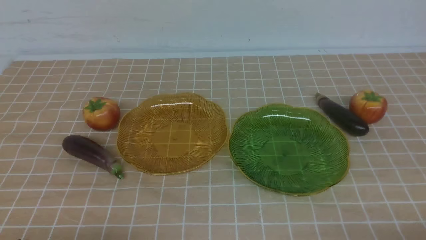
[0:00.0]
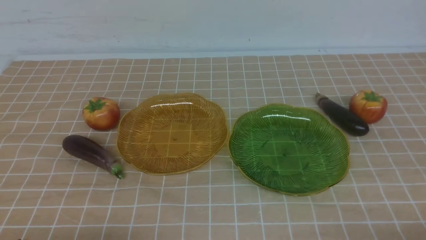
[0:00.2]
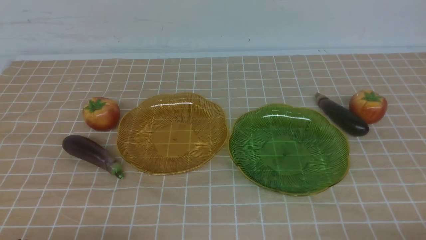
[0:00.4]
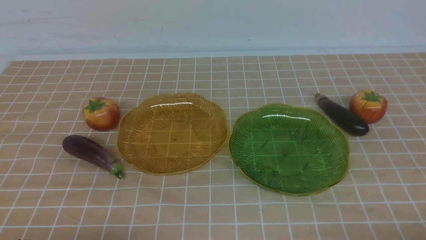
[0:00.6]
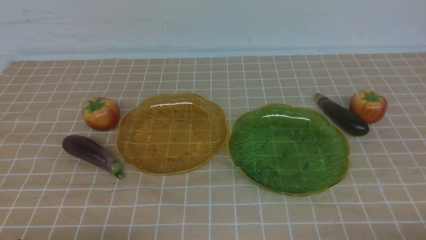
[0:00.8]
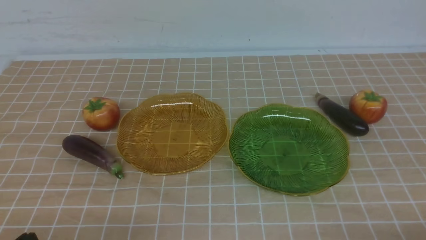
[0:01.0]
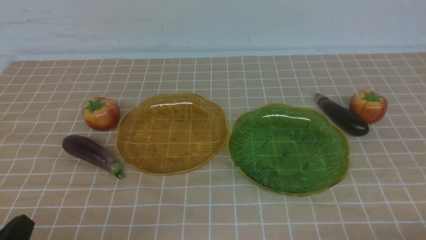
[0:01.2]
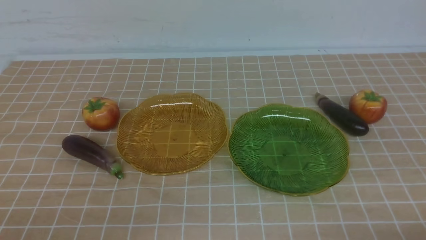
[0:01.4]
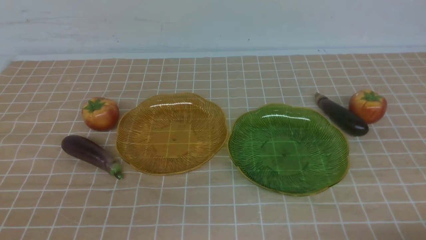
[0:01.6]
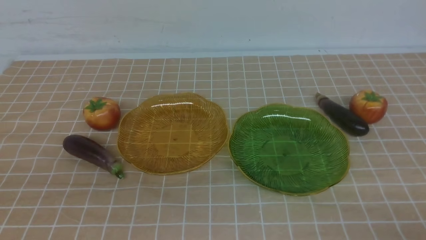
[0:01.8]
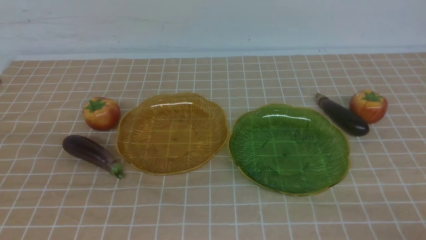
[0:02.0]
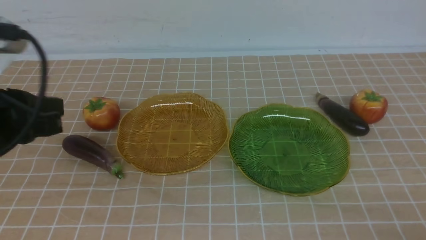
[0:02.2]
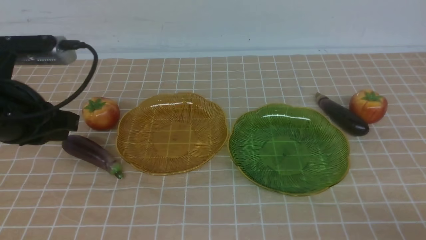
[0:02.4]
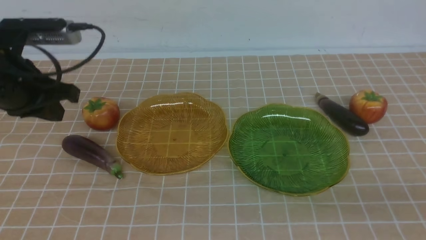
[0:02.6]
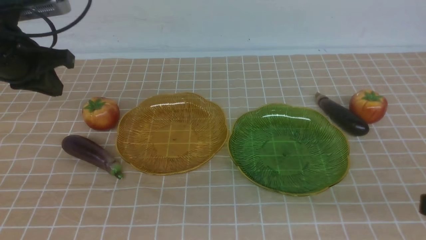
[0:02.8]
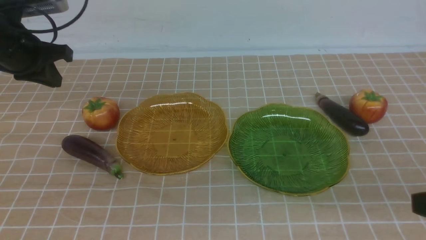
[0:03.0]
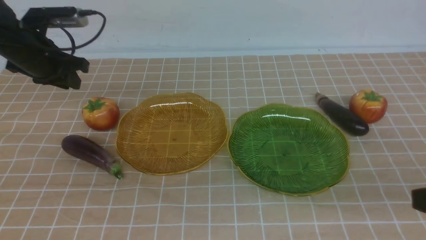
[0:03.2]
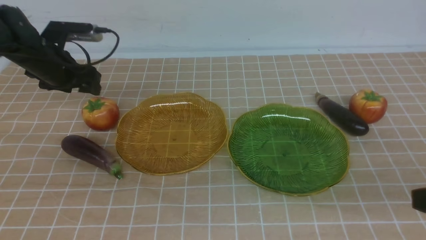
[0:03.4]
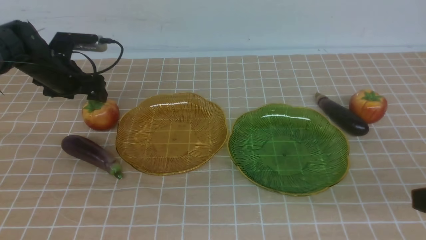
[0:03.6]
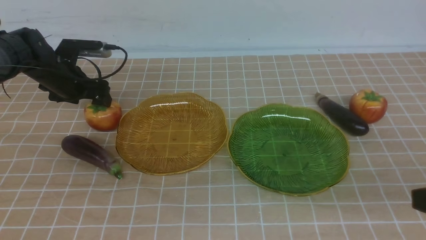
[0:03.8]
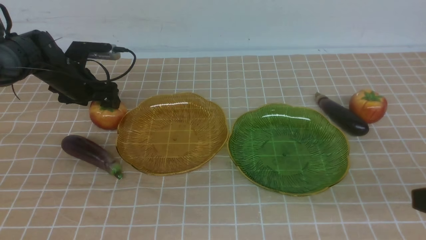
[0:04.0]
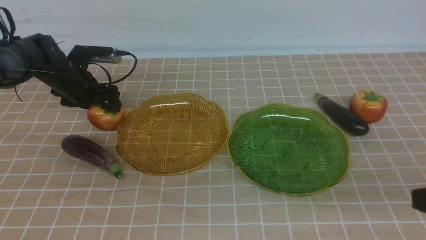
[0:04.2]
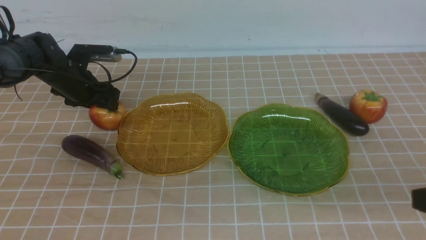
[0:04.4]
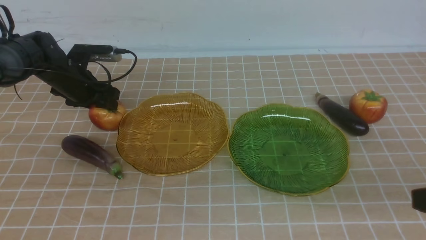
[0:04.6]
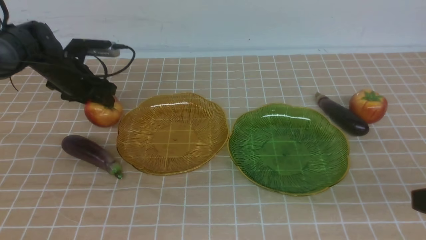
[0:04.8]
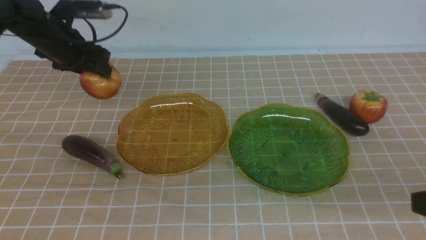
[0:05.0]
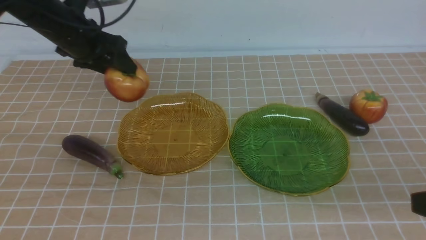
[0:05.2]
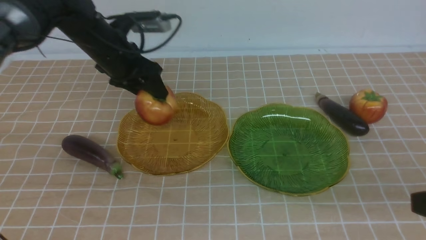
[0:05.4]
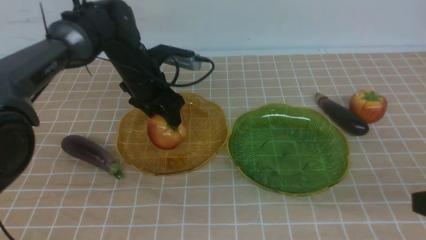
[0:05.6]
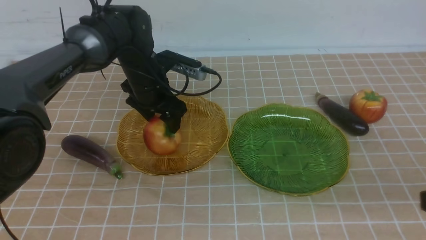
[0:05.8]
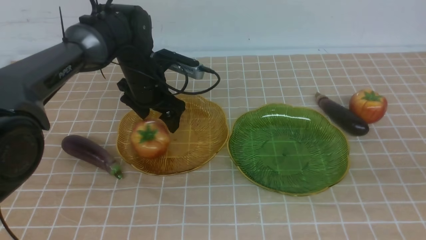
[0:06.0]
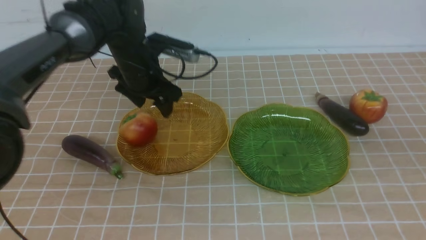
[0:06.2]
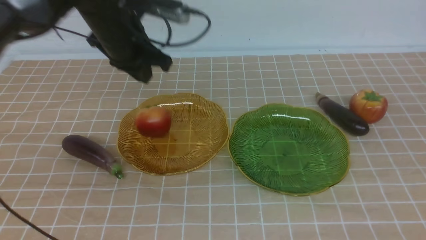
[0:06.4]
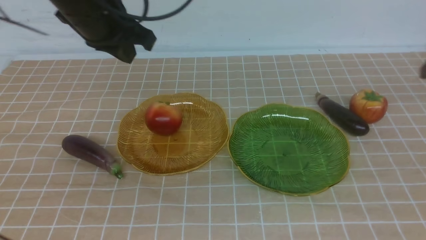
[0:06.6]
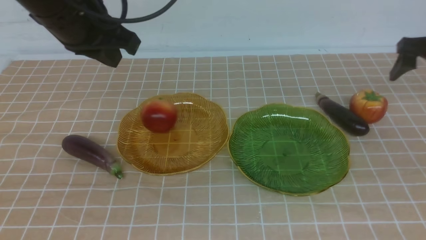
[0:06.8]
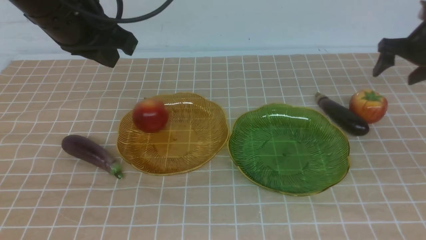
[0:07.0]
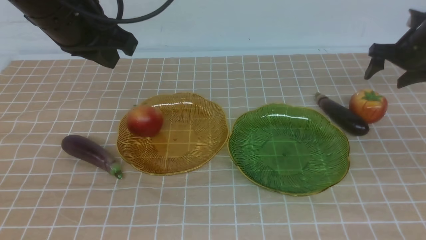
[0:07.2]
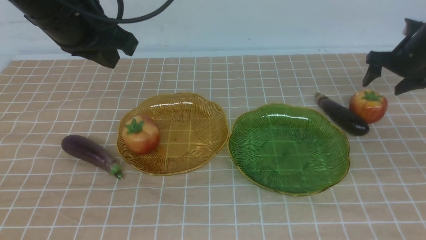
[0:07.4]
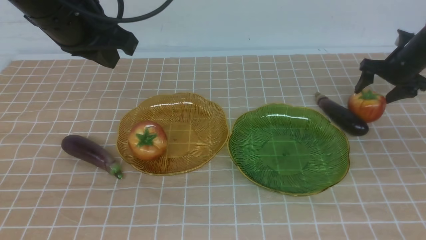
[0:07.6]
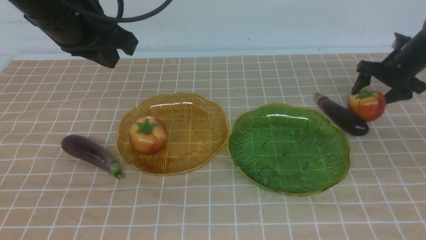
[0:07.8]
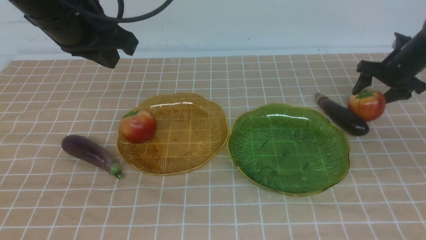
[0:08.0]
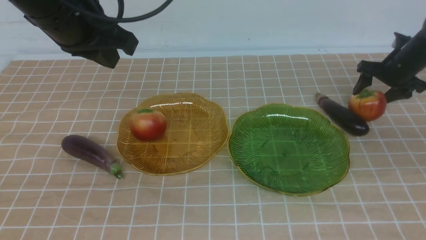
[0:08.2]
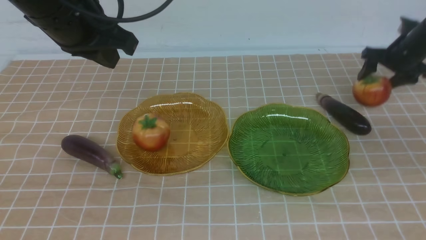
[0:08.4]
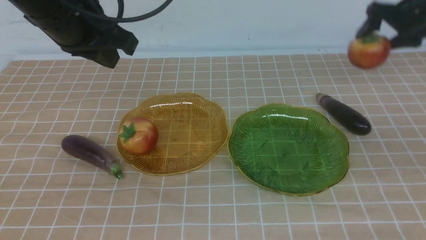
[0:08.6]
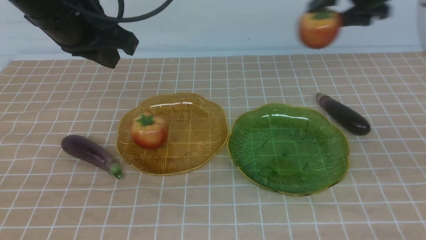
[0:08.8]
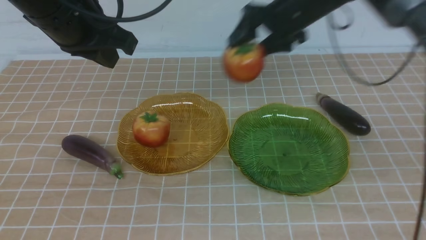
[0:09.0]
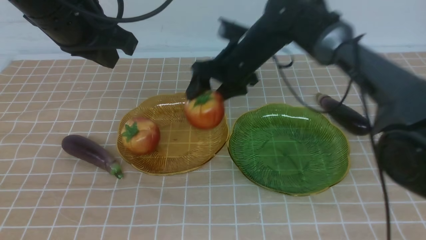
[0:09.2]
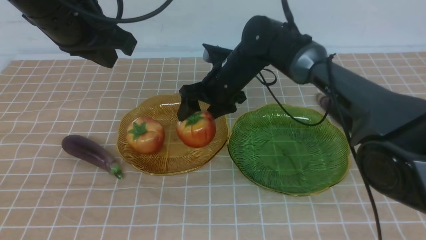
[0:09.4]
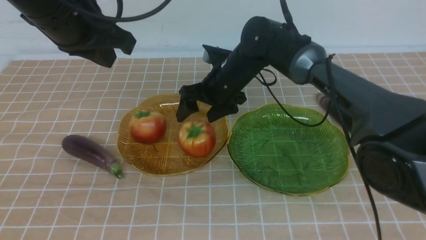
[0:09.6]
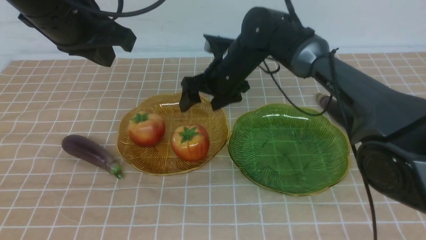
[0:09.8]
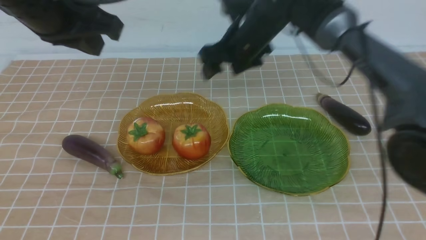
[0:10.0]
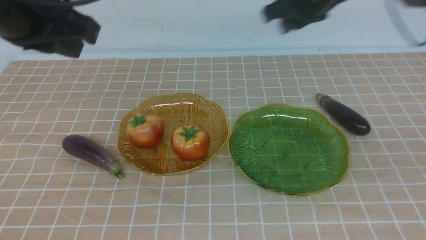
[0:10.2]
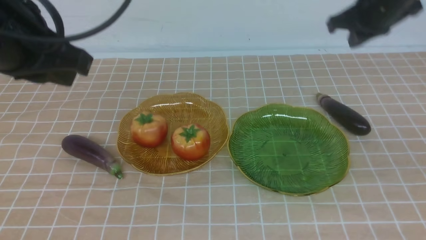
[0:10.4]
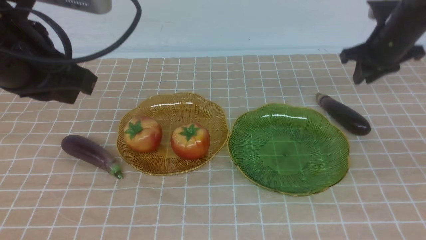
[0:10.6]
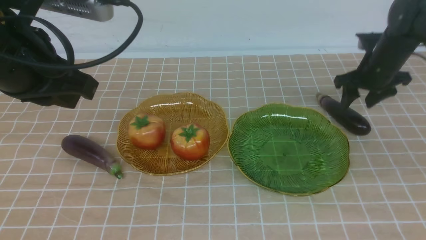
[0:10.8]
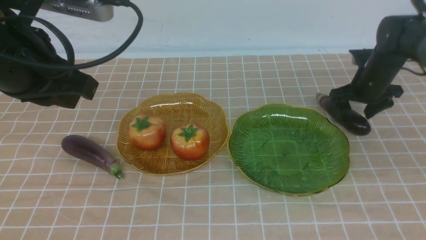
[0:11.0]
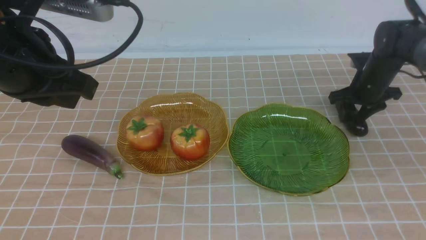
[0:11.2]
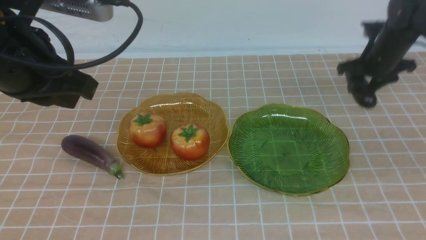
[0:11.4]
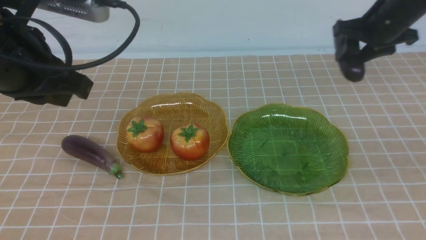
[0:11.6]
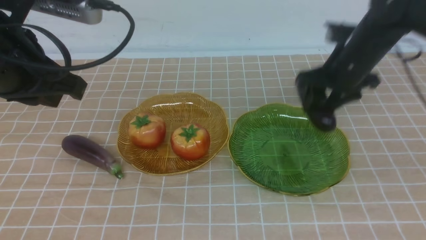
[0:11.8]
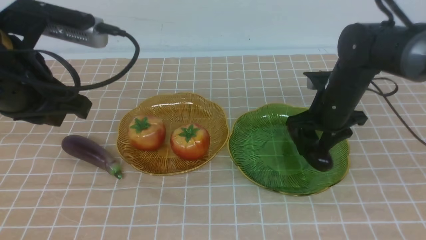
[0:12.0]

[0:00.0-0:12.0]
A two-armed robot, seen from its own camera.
Step, 0:00.0 to 0:06.4: use the left arm to grab a tomato and put it into the left plate.
Step, 0:06.6 to 0:09.8: use the right arm to grab a tomato and put it into the left plate.
0:01.6 to 0:03.0: The left gripper moves forward, some 35 cm; the right gripper shifts approximately 15 cm upward and forward.
0:03.0 to 0:04.4: The left gripper moves downward and forward, about 15 cm, and opens up.
0:04.4 to 0:06.0: The right gripper is displaced forward and upward by roughly 10 cm. Meanwhile the left gripper heads to the right and upward, covering some 15 cm.
0:06.0 to 0:07.6: The right gripper shifts some 35 cm forward and downward, and opens up; the left gripper is displaced upward and backward by some 15 cm, and closes up.
0:07.6 to 0:09.0: The right gripper heads to the left, covering about 30 cm.
0:09.0 to 0:10.4: The right gripper travels to the right by some 25 cm, and closes, then reopens; the left gripper goes approximately 5 cm backward.
0:10.4 to 0:12.0: The left gripper shifts roughly 20 cm downward, forward and to the left; the right gripper moves backward and upward, roughly 25 cm.

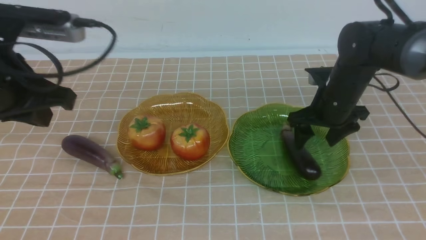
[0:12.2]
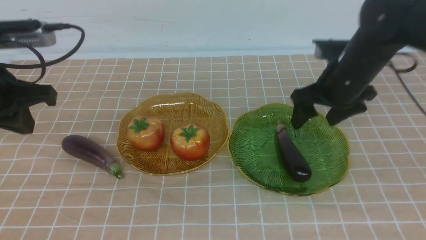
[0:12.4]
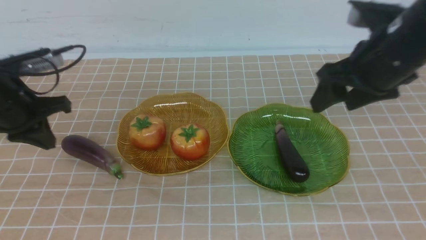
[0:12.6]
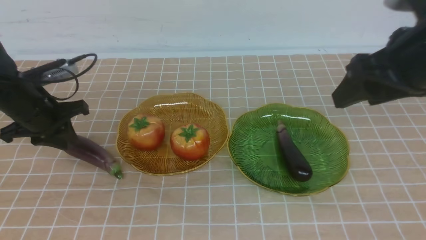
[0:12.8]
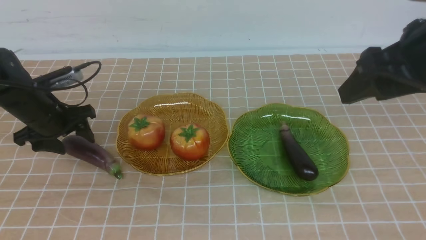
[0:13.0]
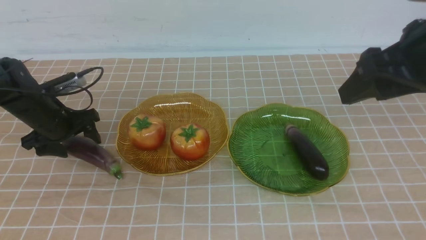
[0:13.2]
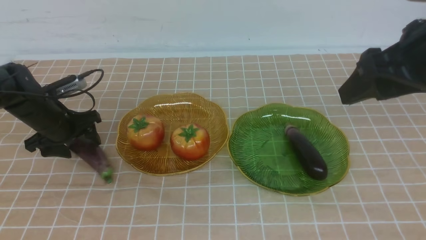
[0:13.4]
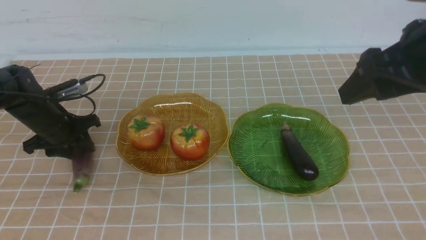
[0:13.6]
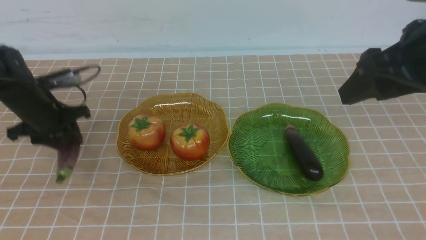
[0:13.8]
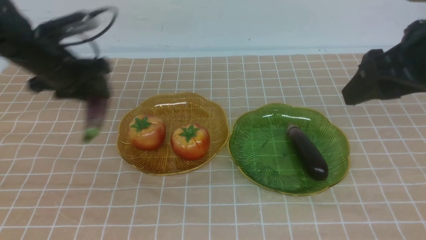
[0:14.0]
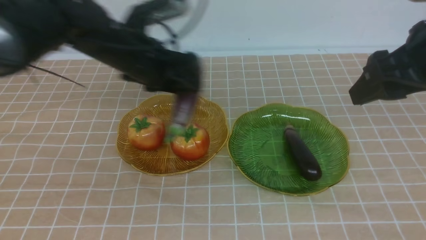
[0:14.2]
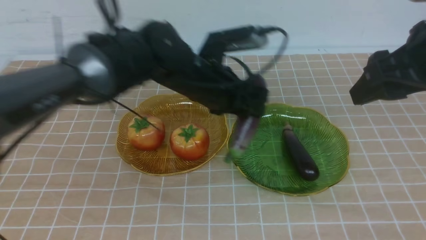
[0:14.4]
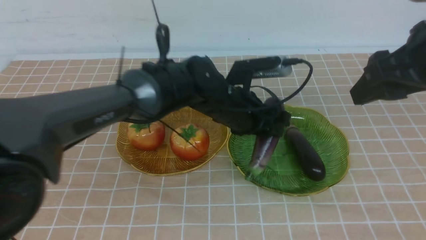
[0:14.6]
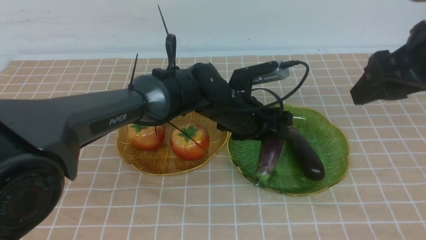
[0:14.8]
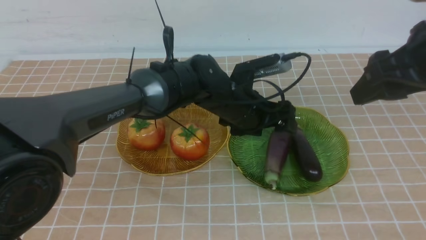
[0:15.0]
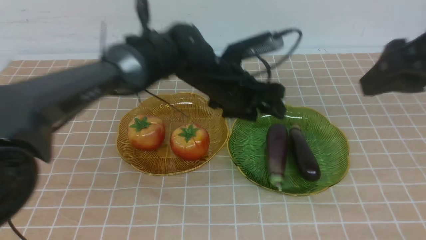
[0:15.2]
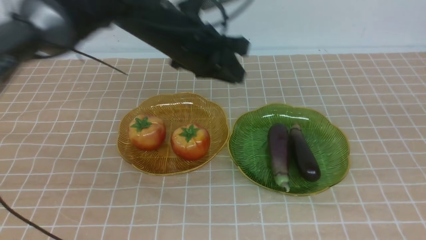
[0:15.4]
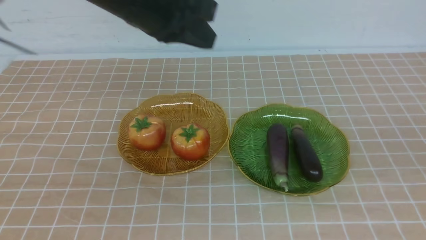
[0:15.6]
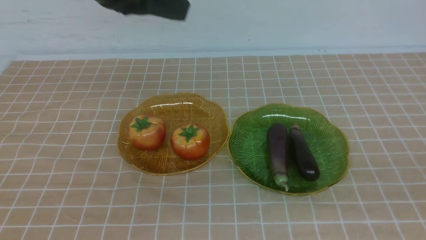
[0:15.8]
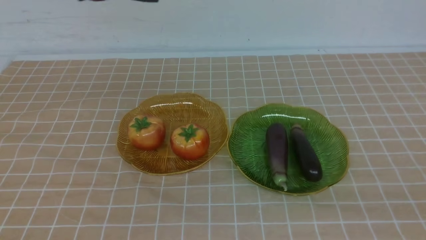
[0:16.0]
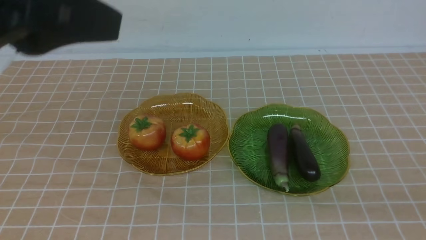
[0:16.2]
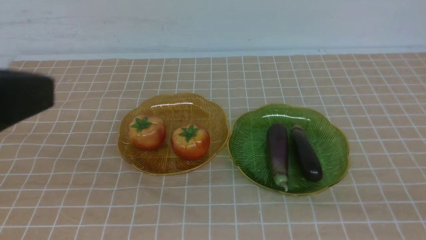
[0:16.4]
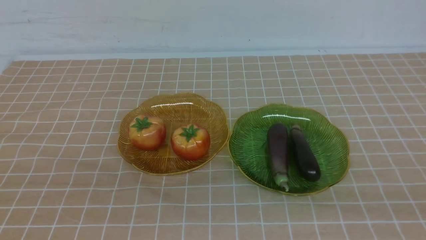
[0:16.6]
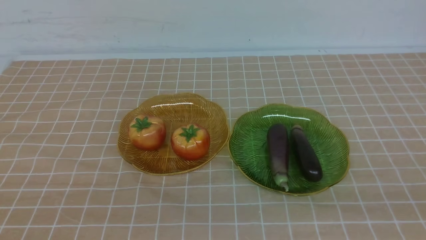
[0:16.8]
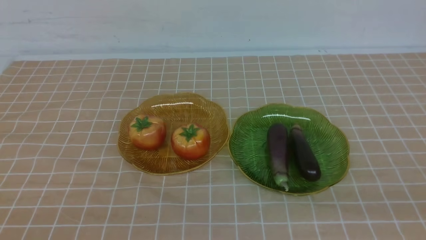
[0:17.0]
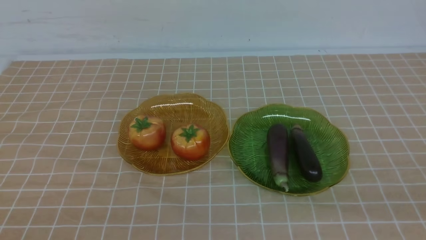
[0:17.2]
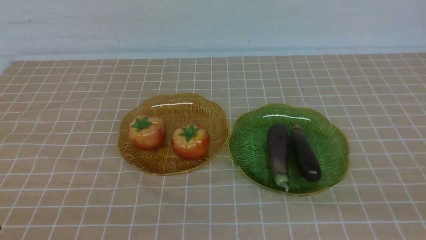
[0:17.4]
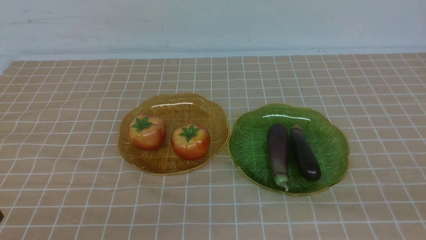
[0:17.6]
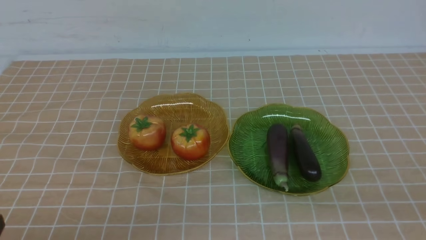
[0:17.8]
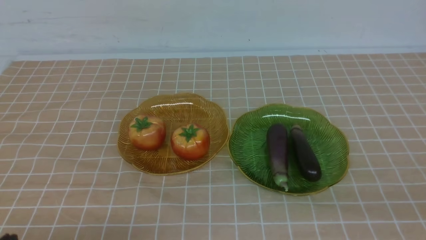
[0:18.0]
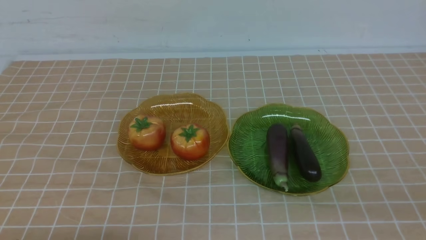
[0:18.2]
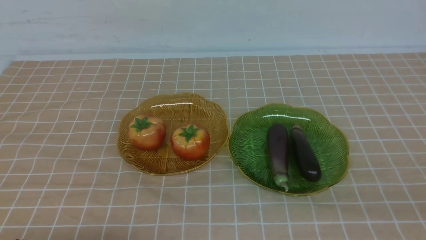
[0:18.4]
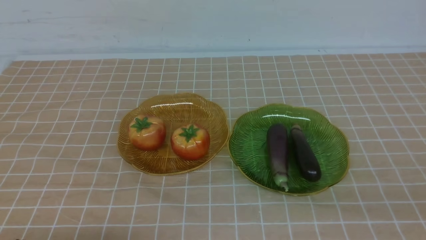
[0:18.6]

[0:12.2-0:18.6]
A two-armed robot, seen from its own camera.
Step, 0:12.4 to 0:15.2: use the left arm to grab an eggplant and put it into the right plate.
0:12.2 to 0:13.8: The left gripper shifts about 30 cm to the right.
0:13.8 to 0:15.4: The right gripper shifts some 25 cm backward, and closes, while the left gripper moves upward, to the left and backward, approximately 35 cm, and closes its fingers.
0:15.4 to 0:17.0: The left gripper heads downward, backward and to the left, covering roughly 35 cm.
